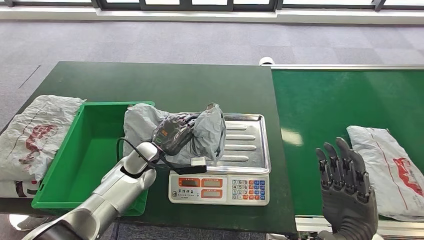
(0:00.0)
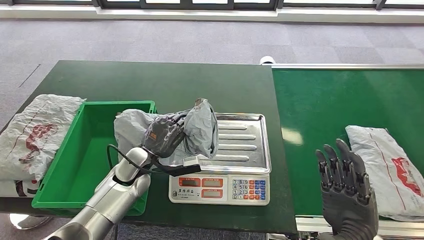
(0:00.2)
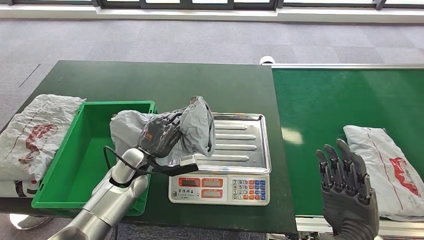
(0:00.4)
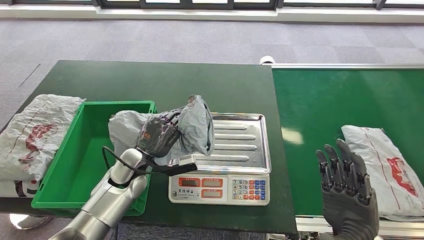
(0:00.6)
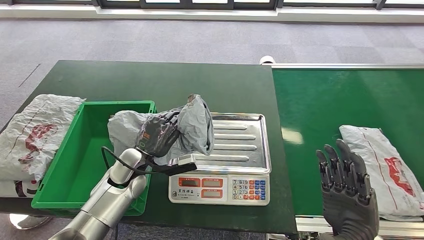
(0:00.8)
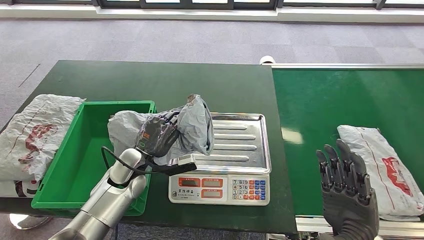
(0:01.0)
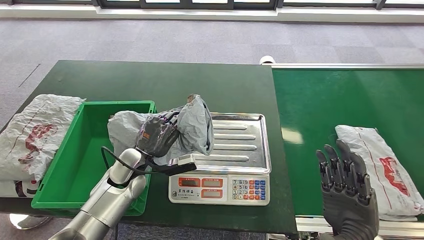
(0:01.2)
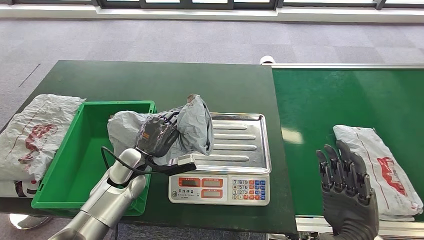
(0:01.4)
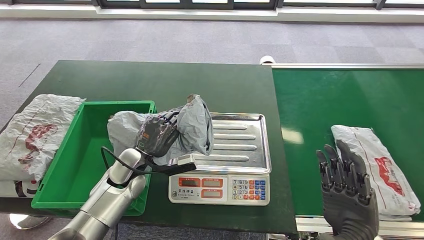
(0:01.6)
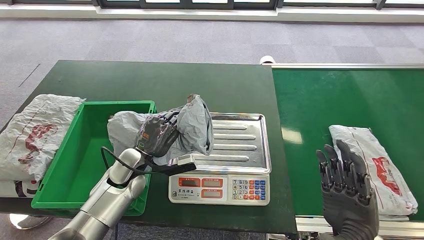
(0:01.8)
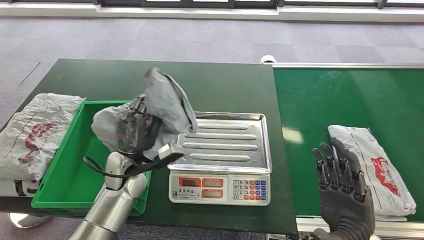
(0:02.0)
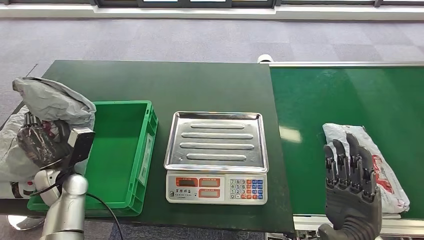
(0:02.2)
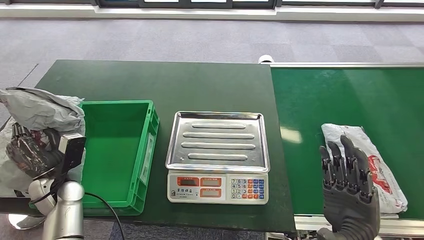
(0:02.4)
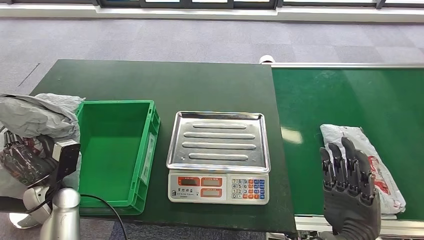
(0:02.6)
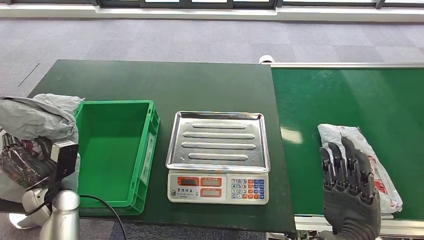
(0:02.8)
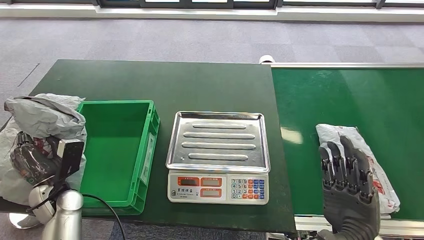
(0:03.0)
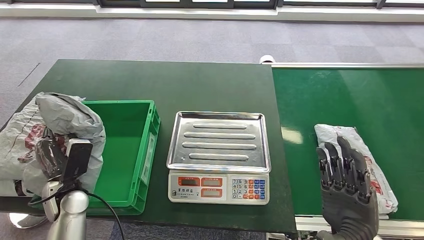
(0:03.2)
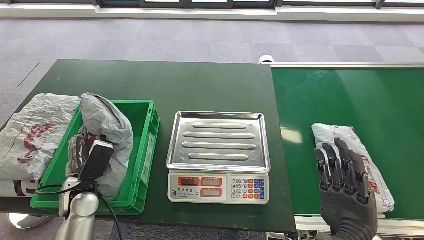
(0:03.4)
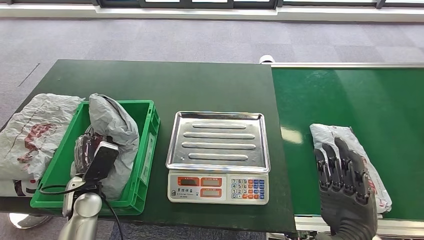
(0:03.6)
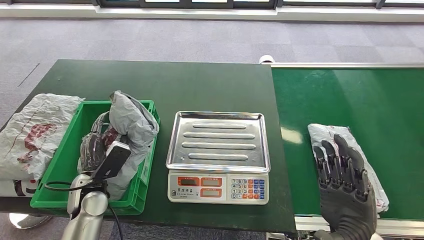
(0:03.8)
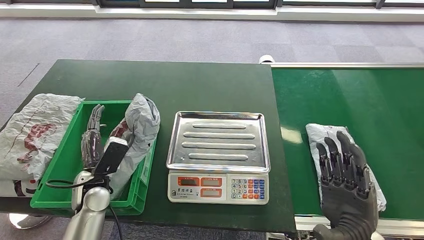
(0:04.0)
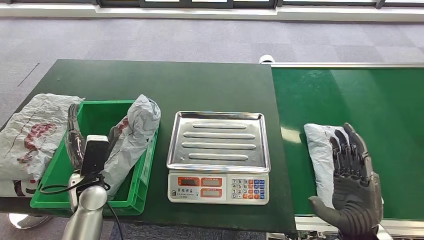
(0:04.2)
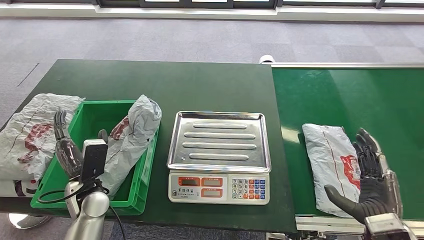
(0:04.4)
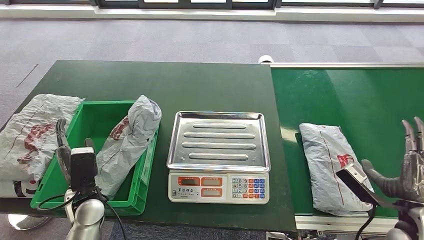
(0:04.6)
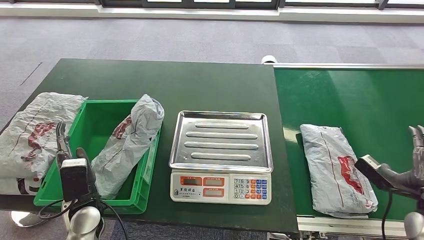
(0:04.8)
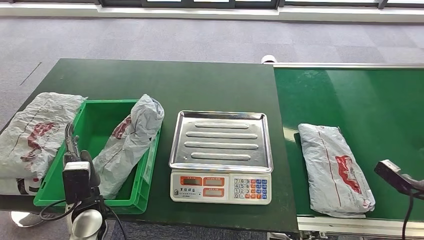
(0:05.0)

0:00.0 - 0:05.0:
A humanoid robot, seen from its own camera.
Step, 0:01.0 - 0:05.0: Put the parcel inside the courier box.
